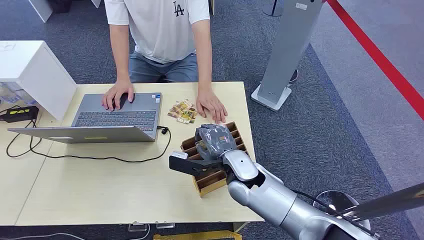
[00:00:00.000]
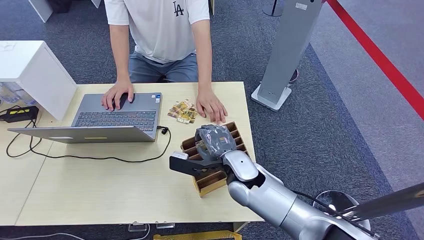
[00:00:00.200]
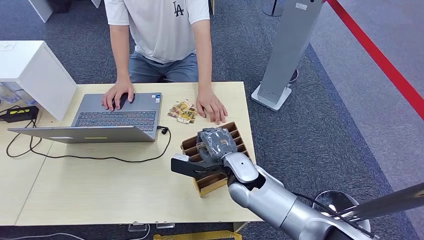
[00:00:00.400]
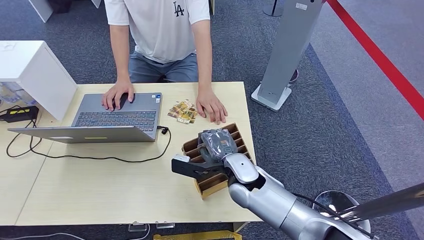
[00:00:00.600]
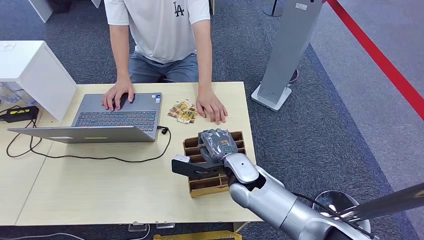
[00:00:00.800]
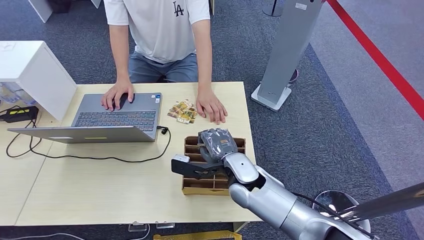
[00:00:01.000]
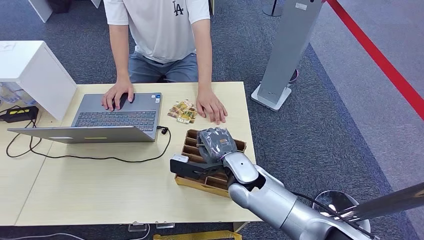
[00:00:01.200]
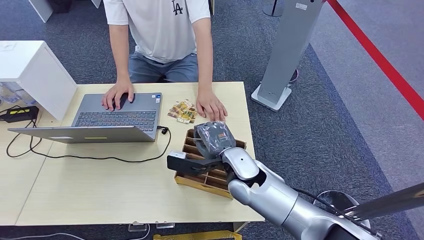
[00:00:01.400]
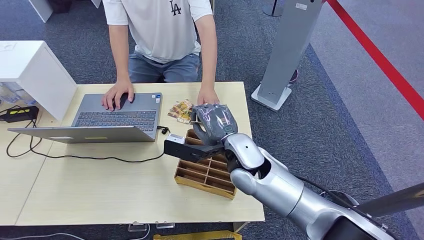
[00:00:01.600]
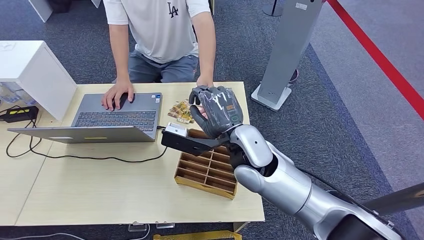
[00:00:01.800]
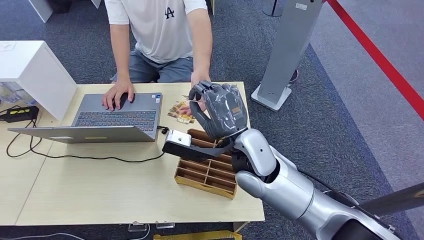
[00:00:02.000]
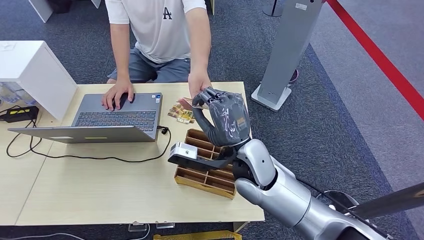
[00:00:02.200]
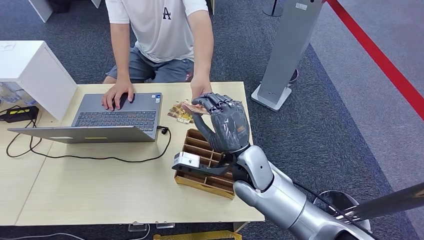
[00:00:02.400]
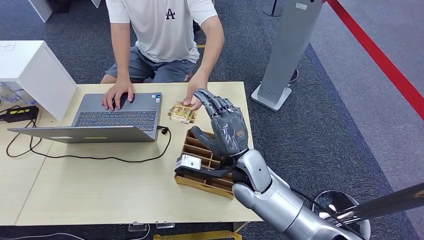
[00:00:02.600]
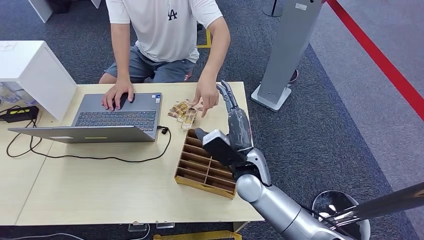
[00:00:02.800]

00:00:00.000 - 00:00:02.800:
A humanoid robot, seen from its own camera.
Step, 00:00:00.000 - 00:00:01.800: Pick up the room card from the card holder.
Step, 00:00:02.000 - 00:00:02.800: Hand the room card to the target.
00:00:01.400 - 00:00:02.800: The right hand goes upward and returns, about 10 cm each way.
